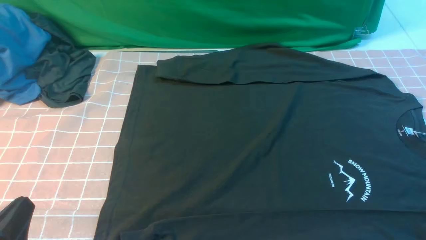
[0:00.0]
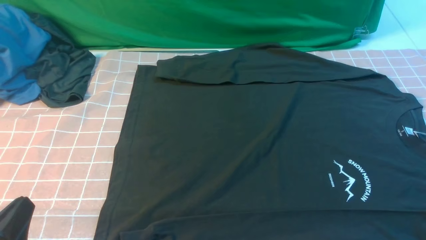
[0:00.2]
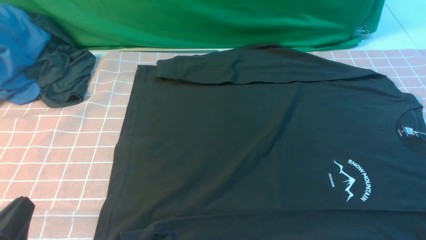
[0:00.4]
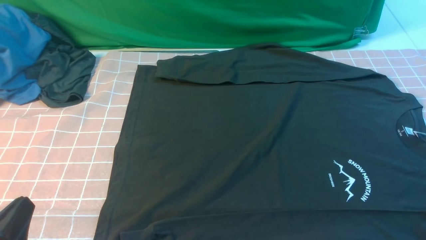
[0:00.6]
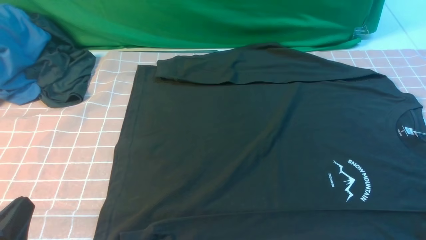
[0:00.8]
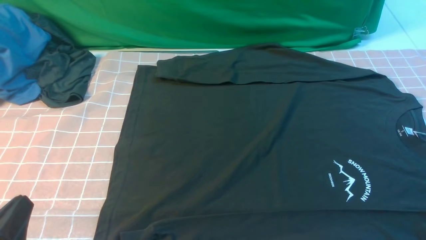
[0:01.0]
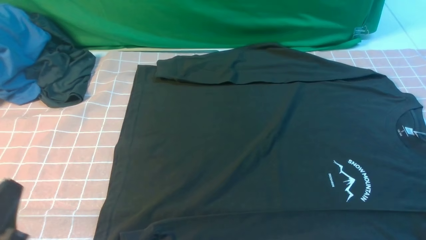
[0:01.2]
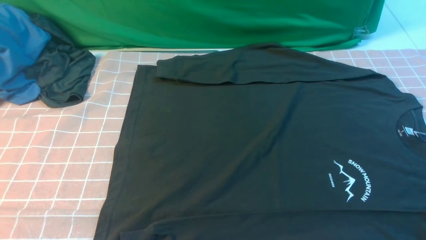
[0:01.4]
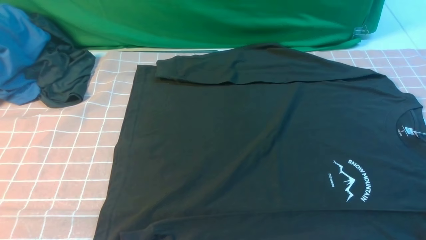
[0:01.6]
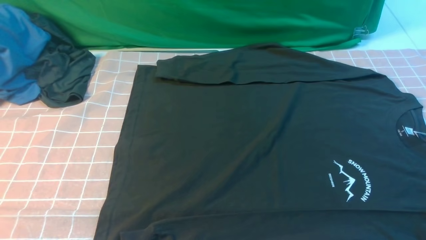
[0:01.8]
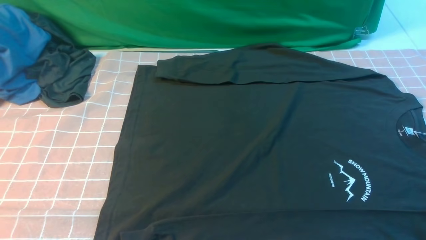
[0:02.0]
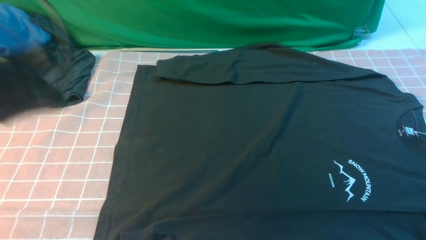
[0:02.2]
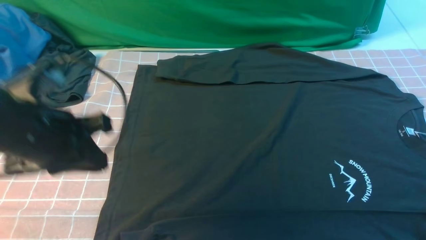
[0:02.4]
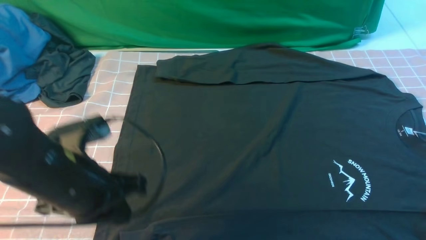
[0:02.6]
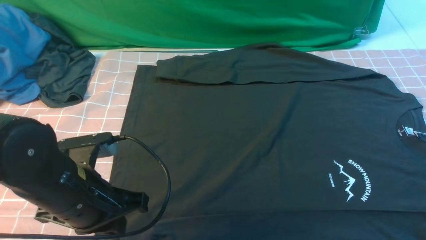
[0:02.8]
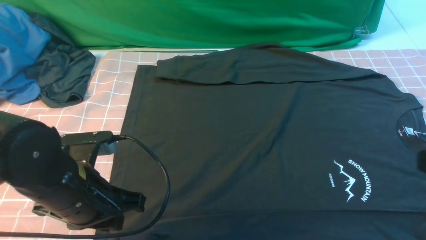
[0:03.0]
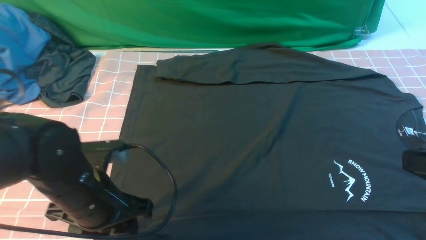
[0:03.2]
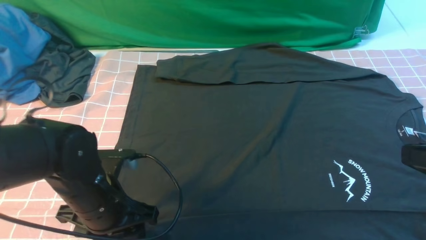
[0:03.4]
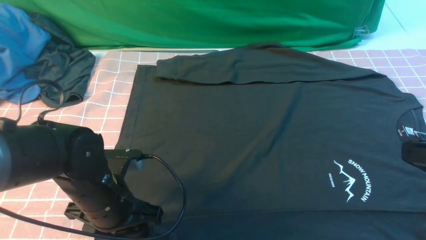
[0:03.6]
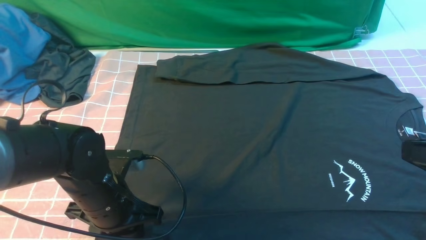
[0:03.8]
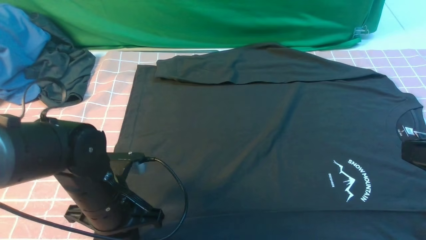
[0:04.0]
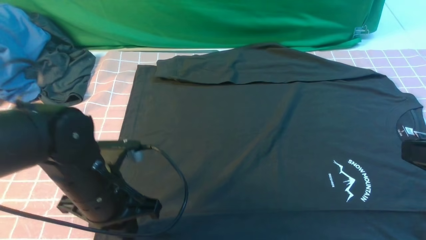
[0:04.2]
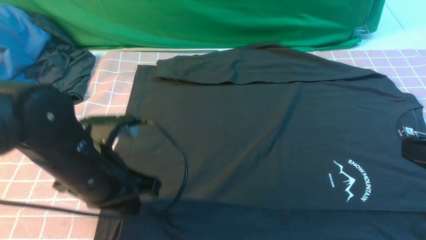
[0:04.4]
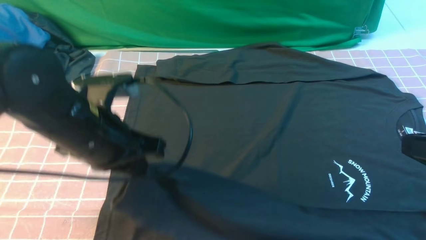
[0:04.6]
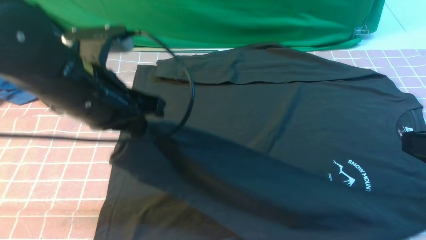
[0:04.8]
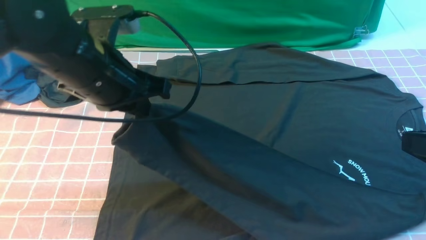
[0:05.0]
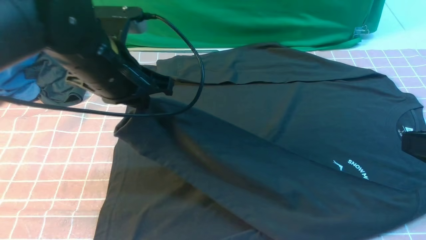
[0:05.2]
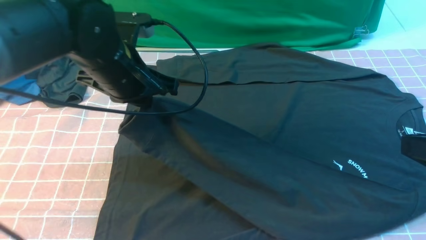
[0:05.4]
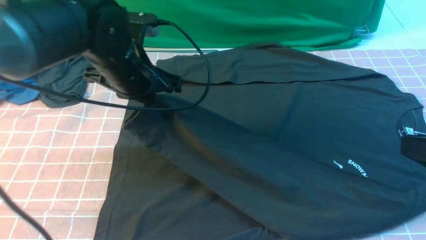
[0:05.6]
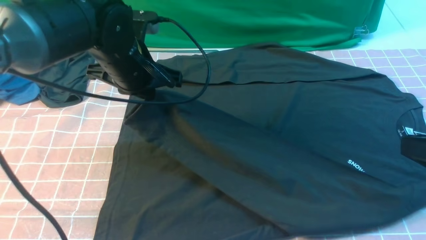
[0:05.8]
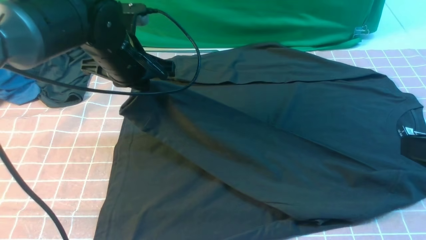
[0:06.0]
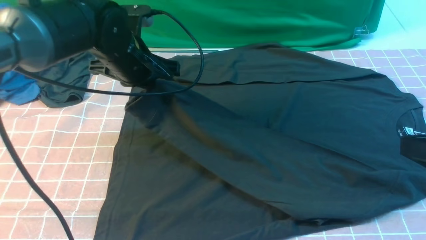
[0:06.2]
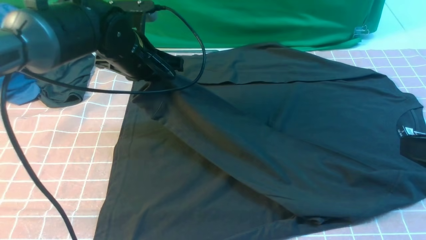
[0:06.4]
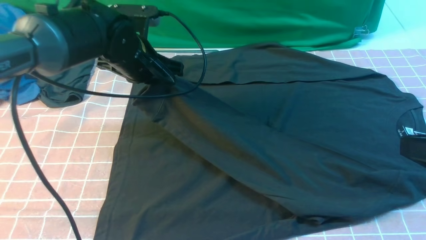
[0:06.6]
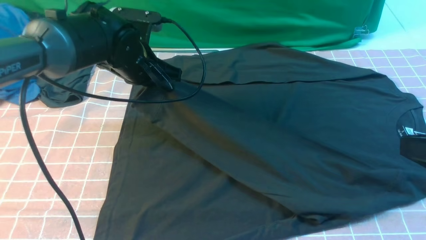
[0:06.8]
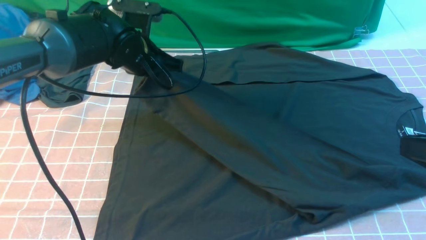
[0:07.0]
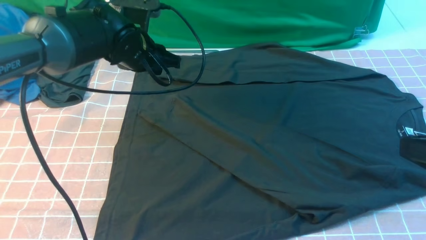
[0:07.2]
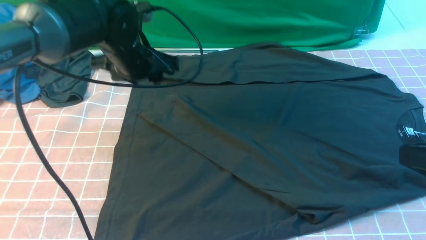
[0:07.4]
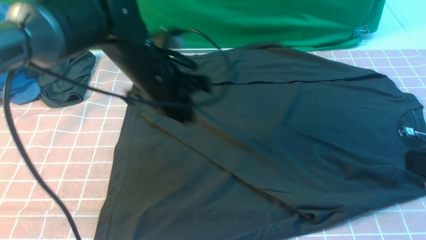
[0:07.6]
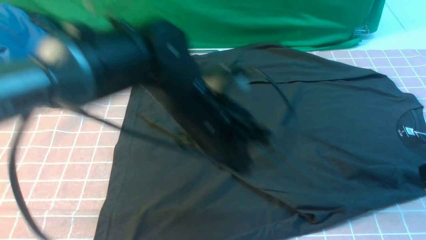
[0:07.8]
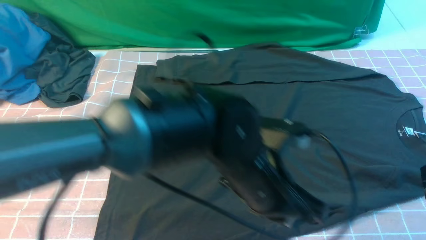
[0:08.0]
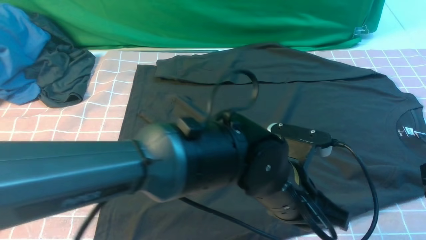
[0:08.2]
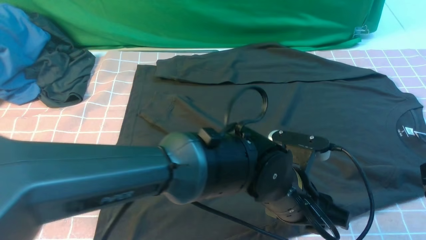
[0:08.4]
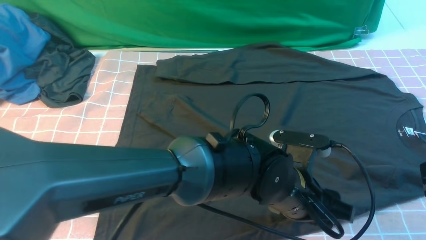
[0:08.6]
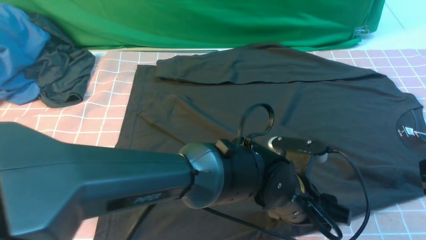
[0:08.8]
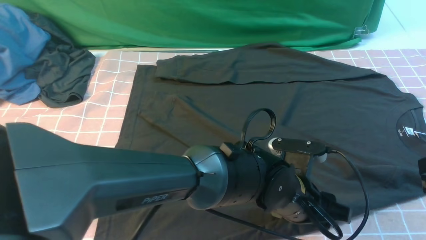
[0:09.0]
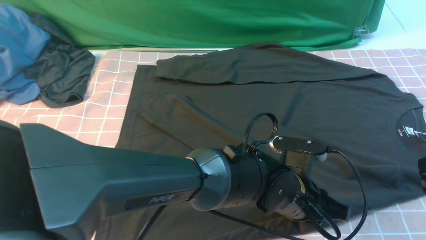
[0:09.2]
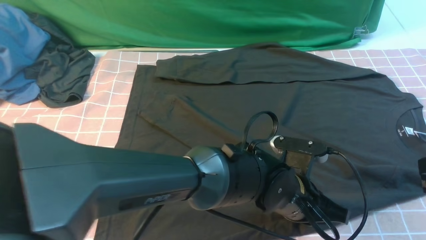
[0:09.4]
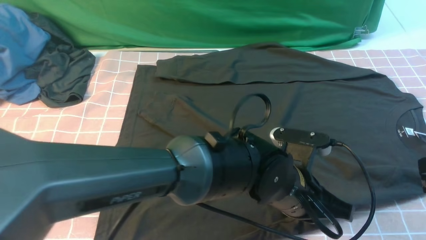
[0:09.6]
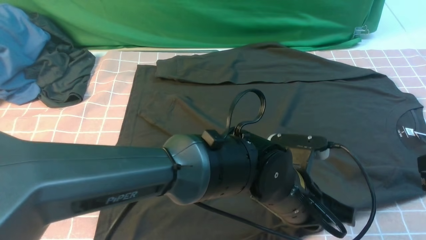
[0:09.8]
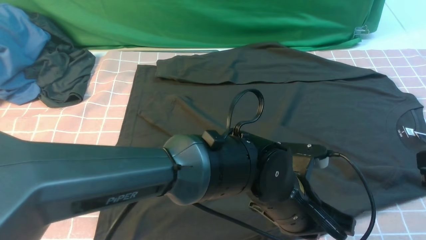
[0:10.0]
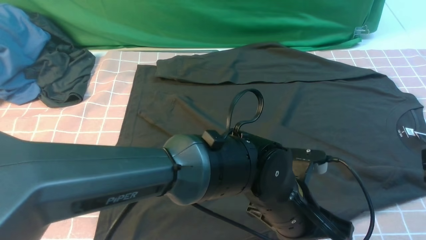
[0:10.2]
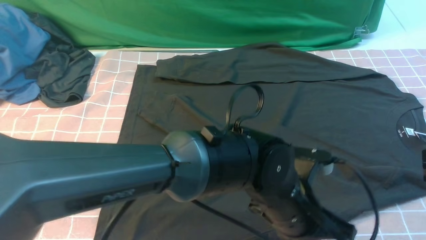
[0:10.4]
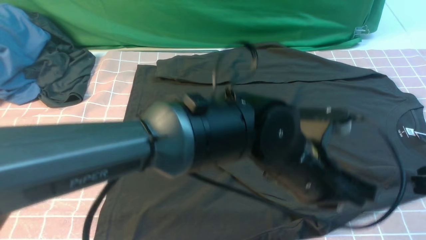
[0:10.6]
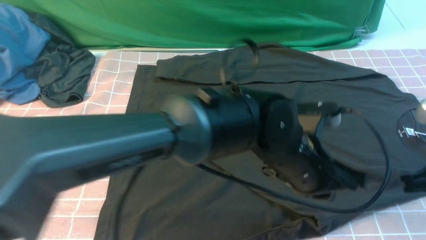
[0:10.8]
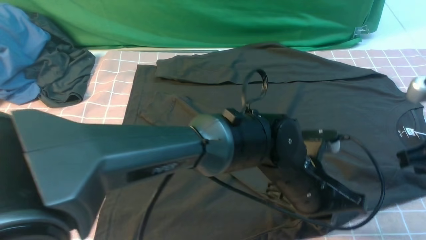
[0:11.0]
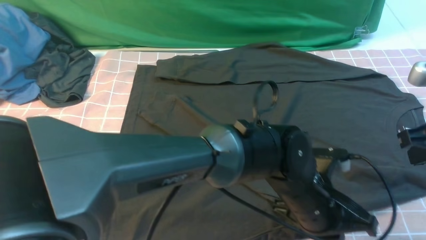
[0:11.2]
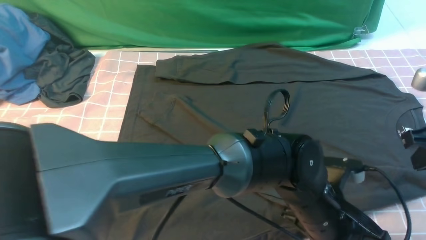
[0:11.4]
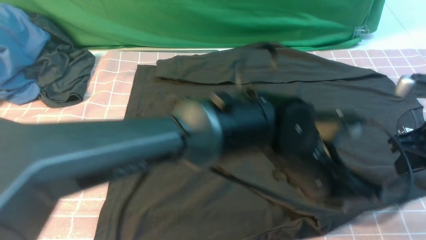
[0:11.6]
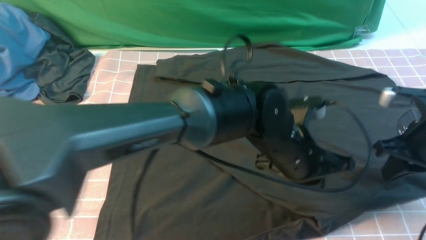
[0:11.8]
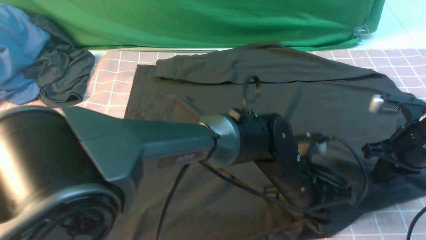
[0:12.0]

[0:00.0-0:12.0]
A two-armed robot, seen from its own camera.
Step, 0:00.0 to 0:03.8: use the left arm to clamp the cuff closest to it.
Step, 0:04.0 to 0:07.2: use the left arm to drag and place the cuff at the centered position on the left edge of the fabric.
0:00.0 to 0:01.6: The left gripper travels upward by approximately 10 cm.
0:01.6 to 0:03.0: The left gripper heads forward, to the right and downward, covering roughly 20 cm, and opens up.
0:03.0 to 0:04.4: The left gripper closes up.
0:04.4 to 0:06.0: The left gripper shifts some 15 cm forward.
0:06.0 to 0:07.6: The left gripper moves to the right, some 5 cm.
0:07.6 to 0:09.0: The left gripper travels to the right, backward and downward by approximately 25 cm, and opens its fingers.
0:09.0 to 0:10.4: The left gripper heads upward, covering approximately 5 cm, and closes up.
0:10.4 to 0:12.0: The left gripper moves forward, about 5 cm, while the right gripper moves forward and downward, roughly 20 cm.

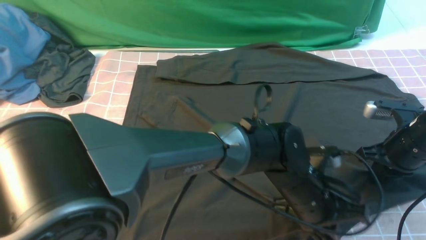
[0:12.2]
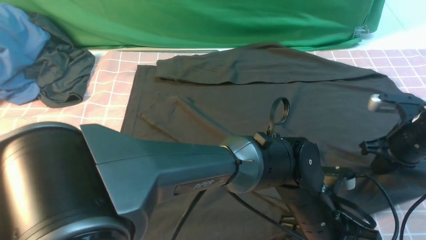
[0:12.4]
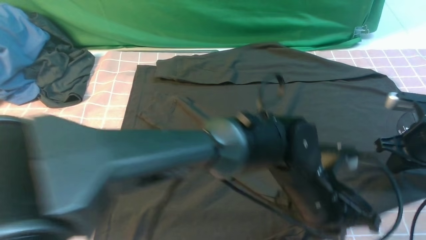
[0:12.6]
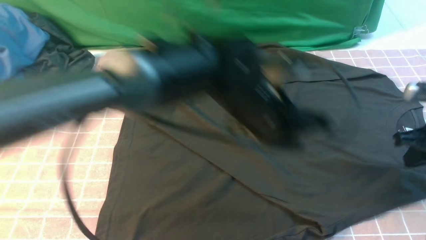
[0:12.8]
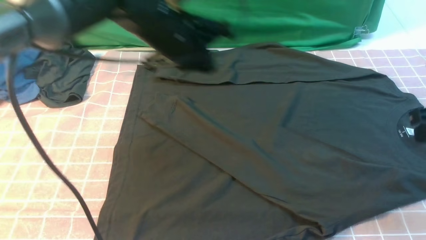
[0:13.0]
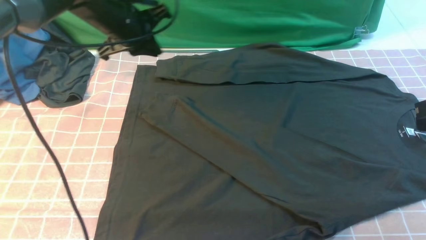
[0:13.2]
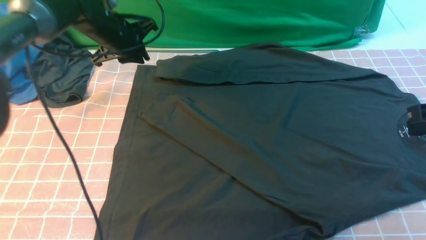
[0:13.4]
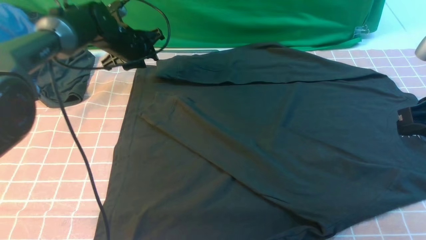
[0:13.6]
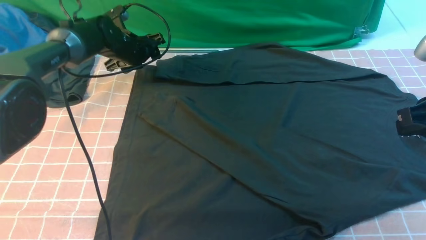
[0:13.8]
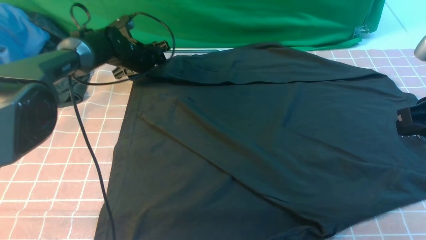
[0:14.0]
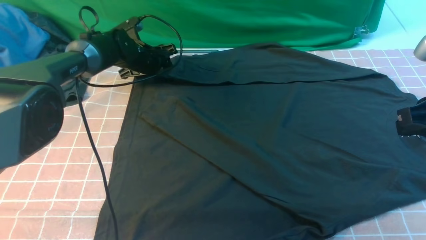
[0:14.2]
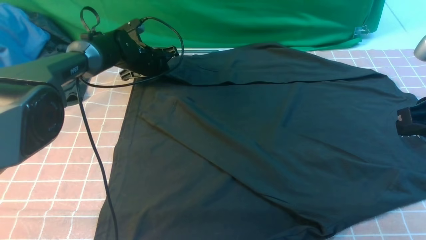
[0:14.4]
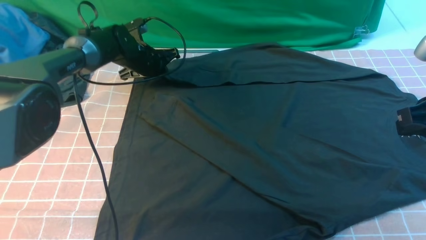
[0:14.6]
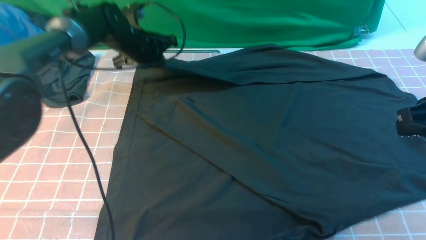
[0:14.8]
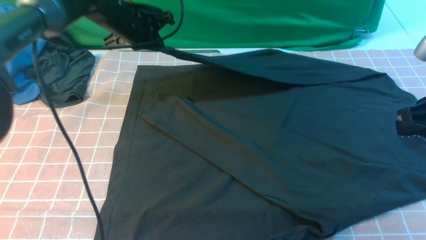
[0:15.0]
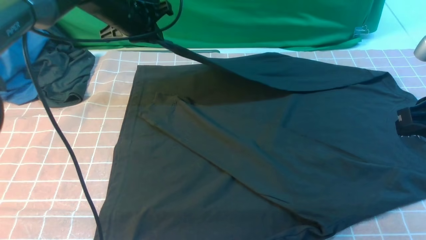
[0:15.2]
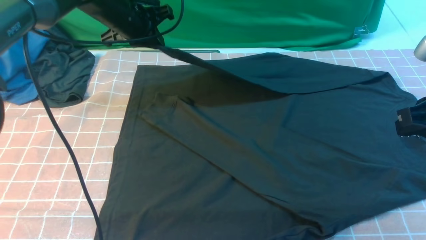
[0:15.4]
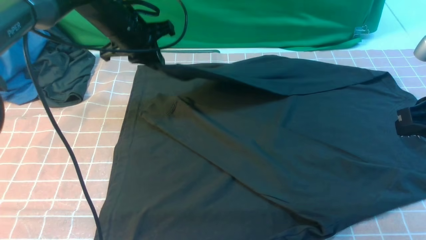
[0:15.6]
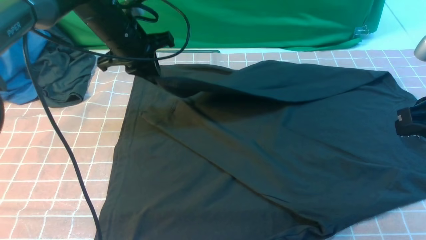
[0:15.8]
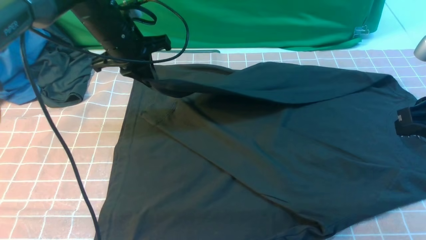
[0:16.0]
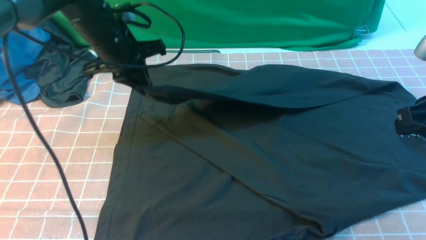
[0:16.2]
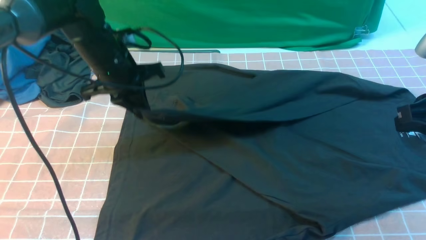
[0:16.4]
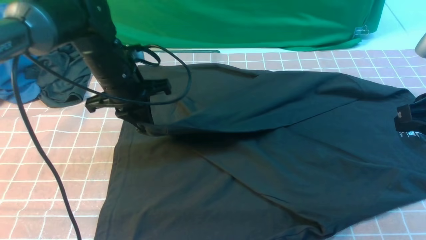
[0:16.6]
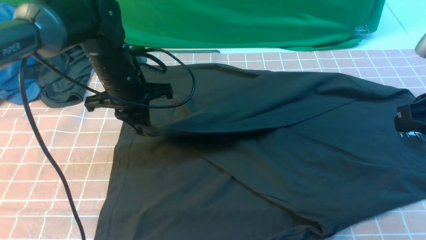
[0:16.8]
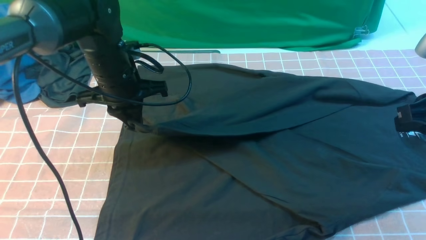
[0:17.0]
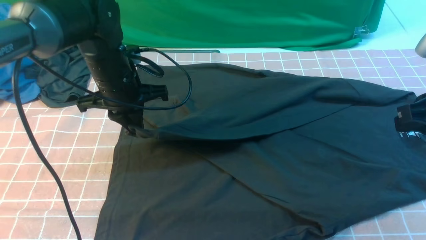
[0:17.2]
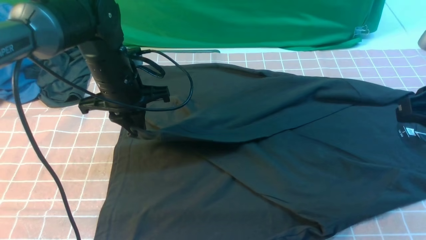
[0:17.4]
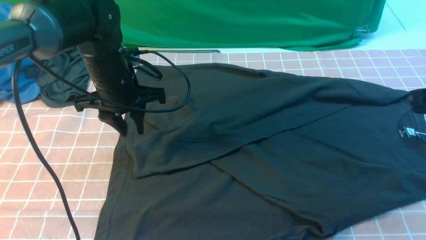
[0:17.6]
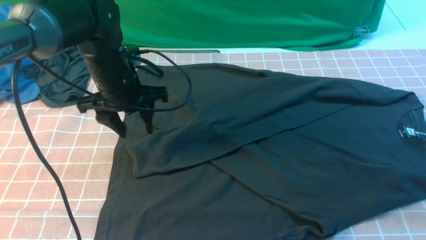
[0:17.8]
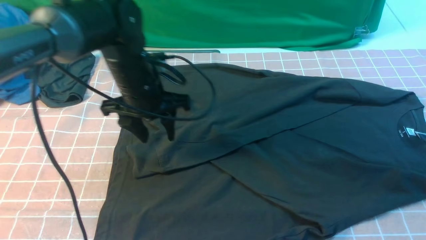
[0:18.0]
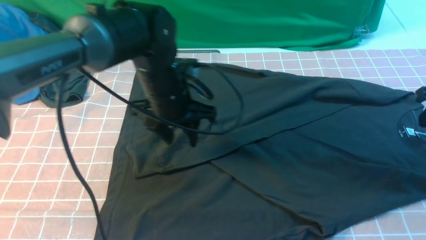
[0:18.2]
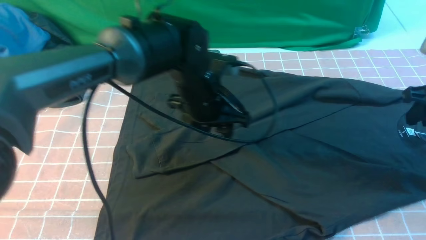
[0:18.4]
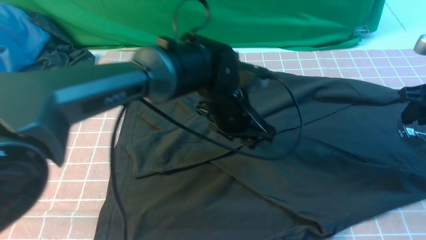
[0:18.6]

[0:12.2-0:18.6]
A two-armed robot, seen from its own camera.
Step, 0:12.2 to 0:14.4: use the left arm to clamp the cuff farthest from it.
Step, 0:14.6 to 0:17.4: use the left arm to drag and drop the cuff onto the cuff closest to the left arm.
0:12.2 to 0:13.8: The left gripper travels to the left and forward by some 40 cm, and opens its fingers; the right gripper is displaced upward and backward by roughly 15 cm.
0:13.8 to 0:15.4: The left gripper travels upward and backward by some 10 cm, and closes up.
0:15.4 to 0:17.0: The left gripper is displaced backward by some 10 cm.
0:17.0 to 0:18.6: The right gripper moves forward and to the right, approximately 10 cm; the left gripper shifts some 15 cm to the right, and opens.
